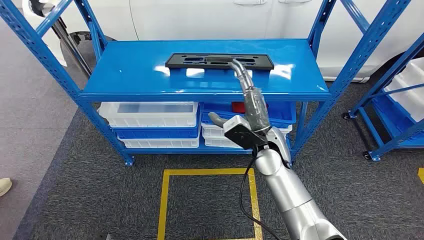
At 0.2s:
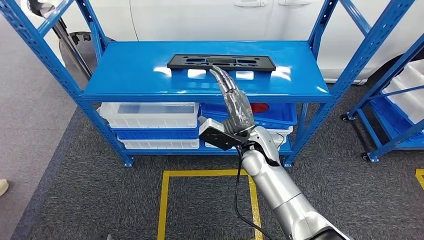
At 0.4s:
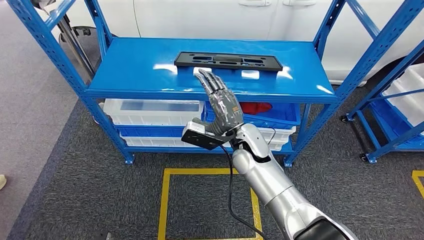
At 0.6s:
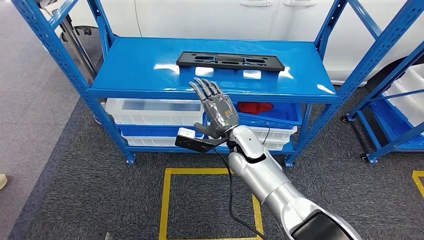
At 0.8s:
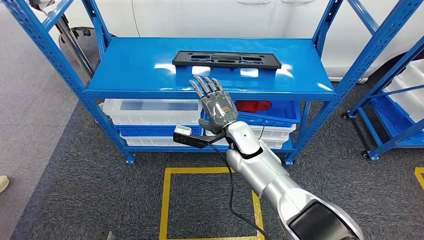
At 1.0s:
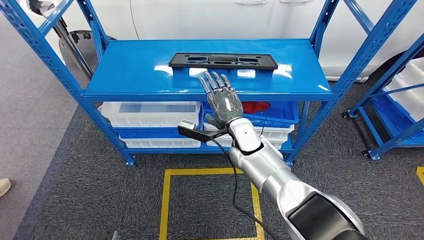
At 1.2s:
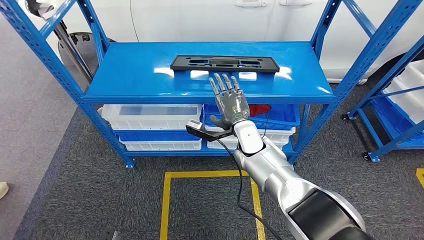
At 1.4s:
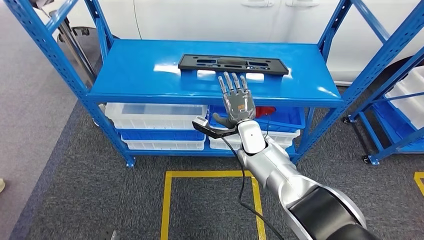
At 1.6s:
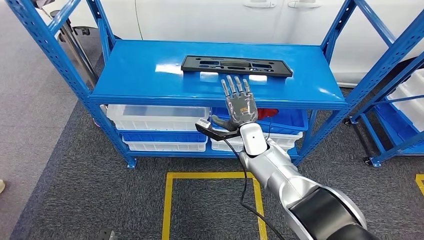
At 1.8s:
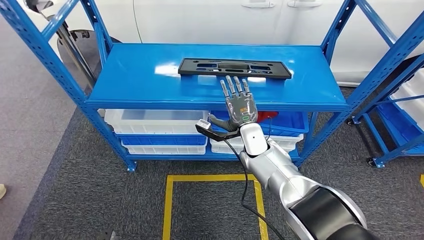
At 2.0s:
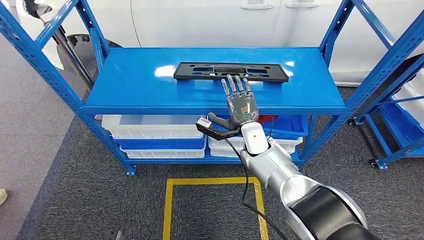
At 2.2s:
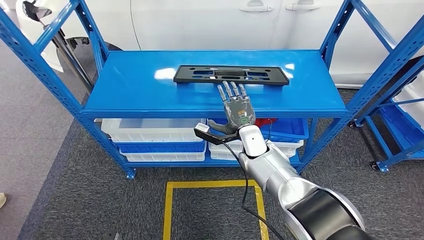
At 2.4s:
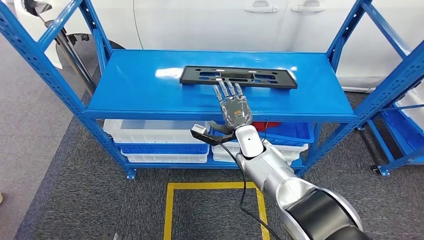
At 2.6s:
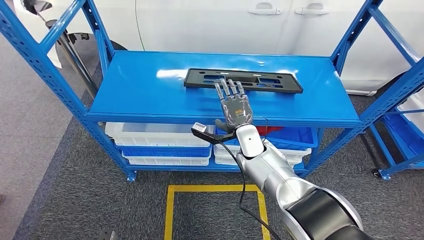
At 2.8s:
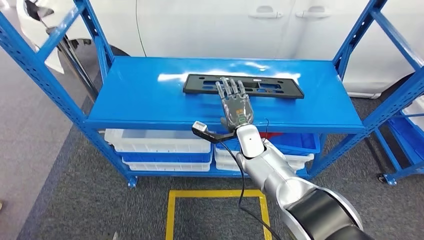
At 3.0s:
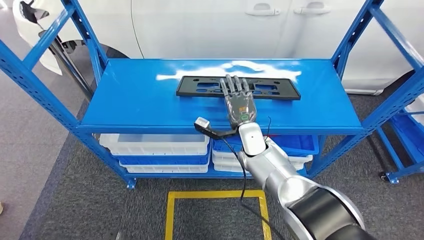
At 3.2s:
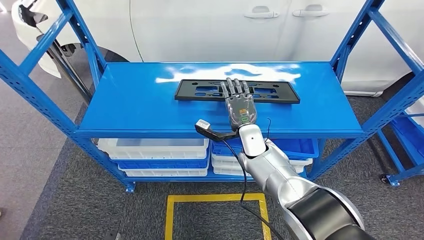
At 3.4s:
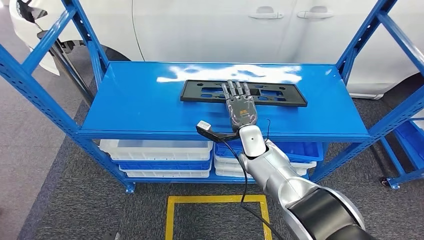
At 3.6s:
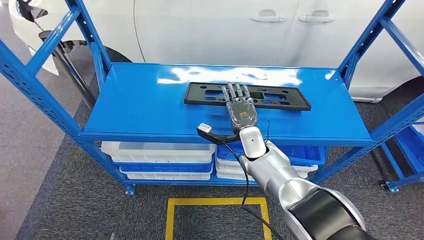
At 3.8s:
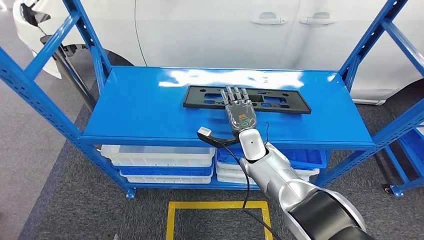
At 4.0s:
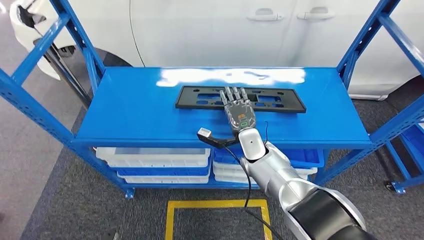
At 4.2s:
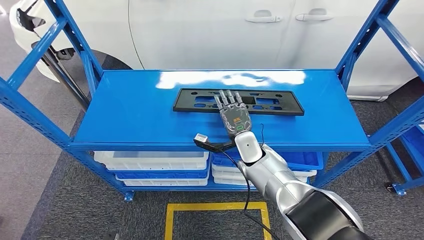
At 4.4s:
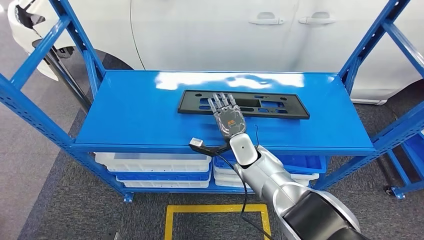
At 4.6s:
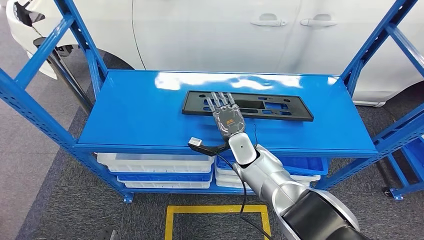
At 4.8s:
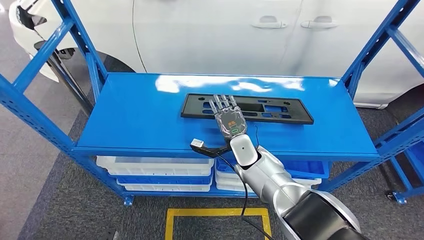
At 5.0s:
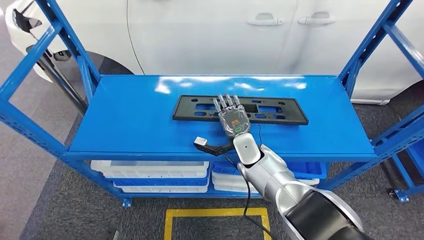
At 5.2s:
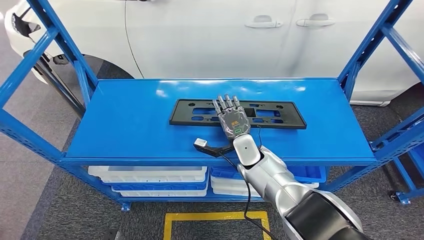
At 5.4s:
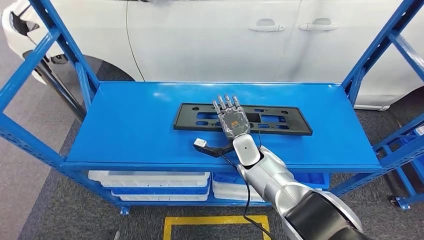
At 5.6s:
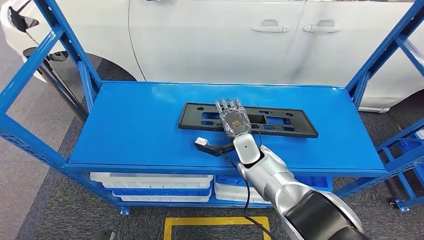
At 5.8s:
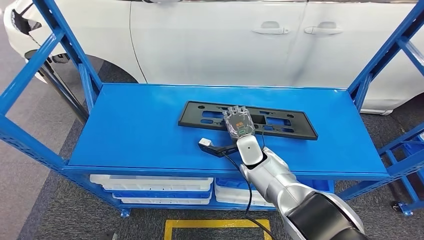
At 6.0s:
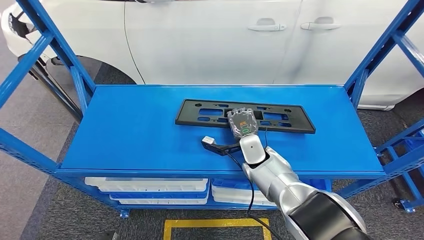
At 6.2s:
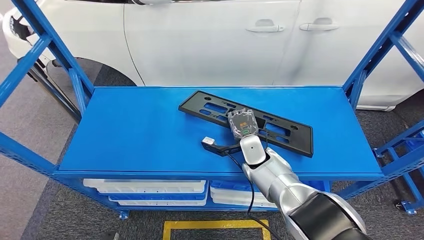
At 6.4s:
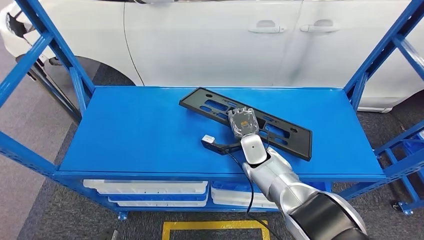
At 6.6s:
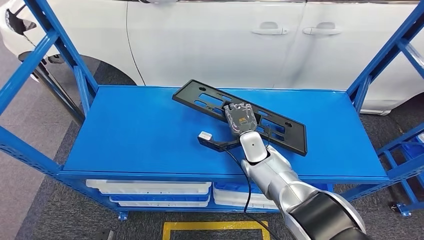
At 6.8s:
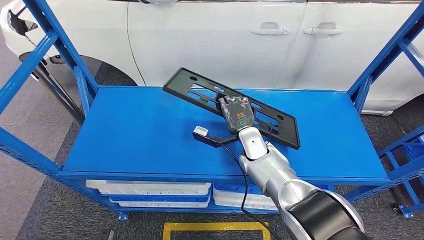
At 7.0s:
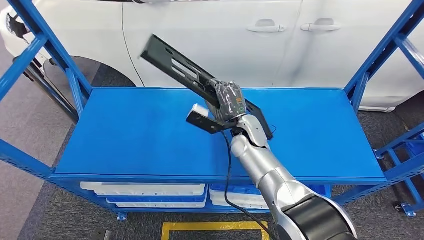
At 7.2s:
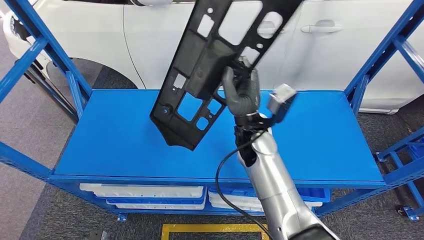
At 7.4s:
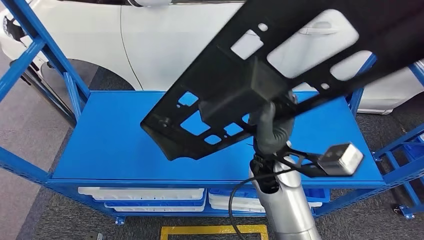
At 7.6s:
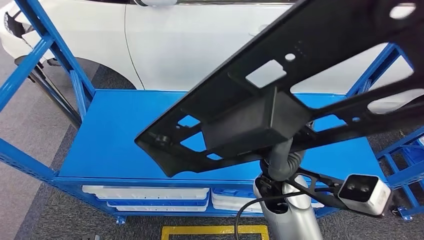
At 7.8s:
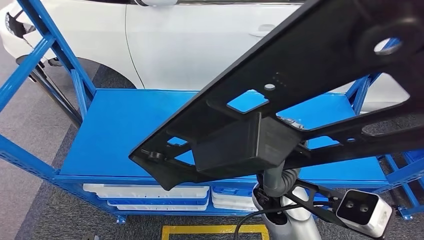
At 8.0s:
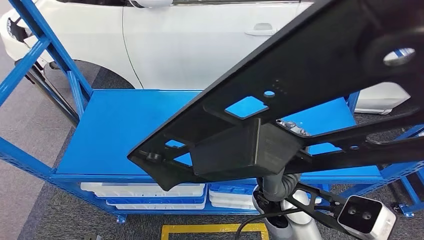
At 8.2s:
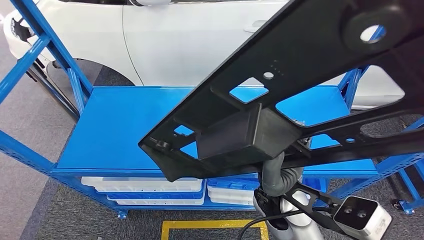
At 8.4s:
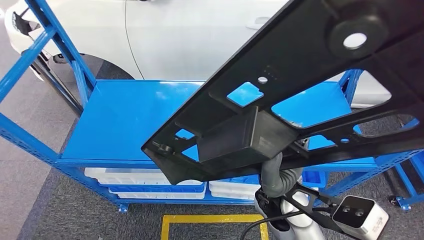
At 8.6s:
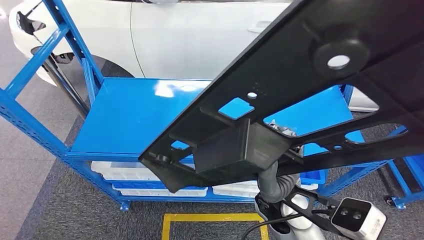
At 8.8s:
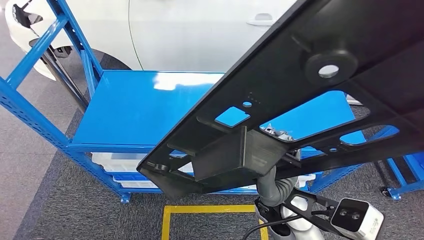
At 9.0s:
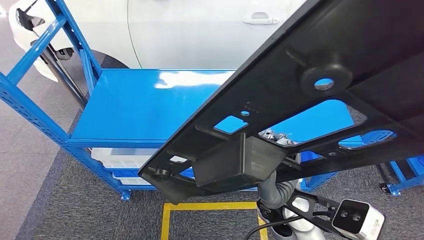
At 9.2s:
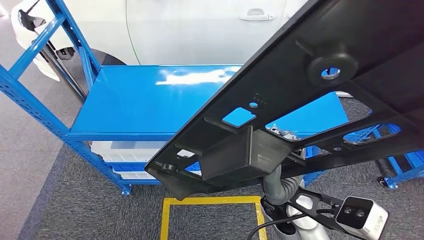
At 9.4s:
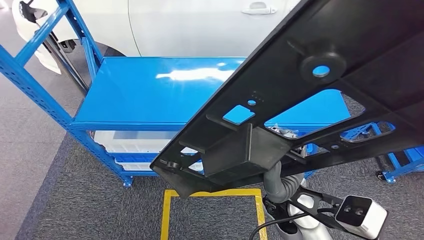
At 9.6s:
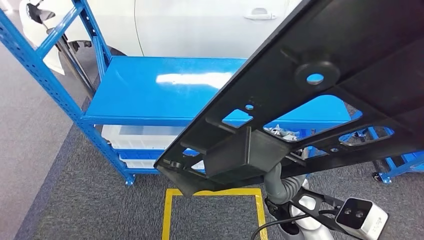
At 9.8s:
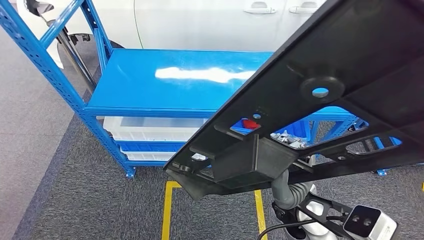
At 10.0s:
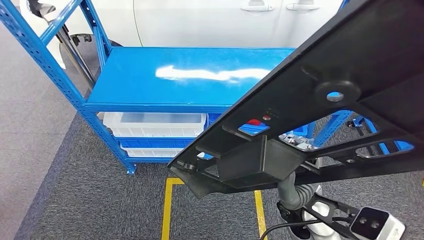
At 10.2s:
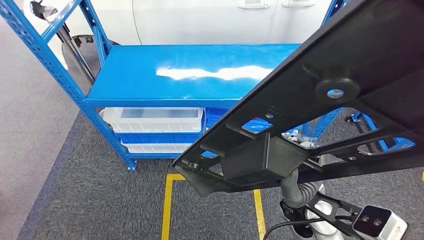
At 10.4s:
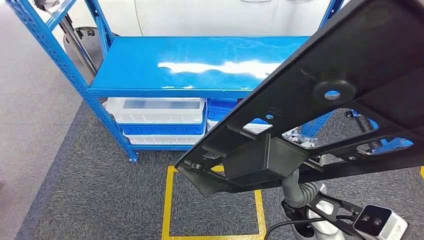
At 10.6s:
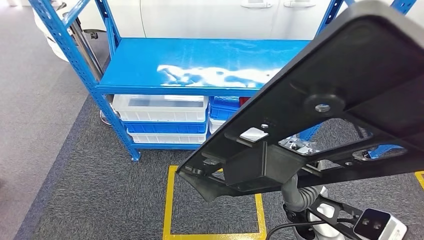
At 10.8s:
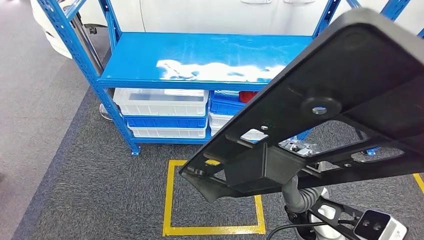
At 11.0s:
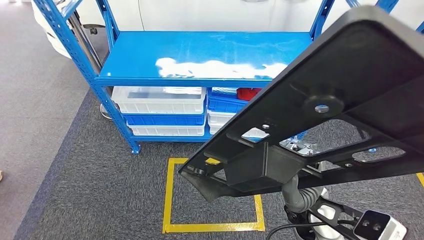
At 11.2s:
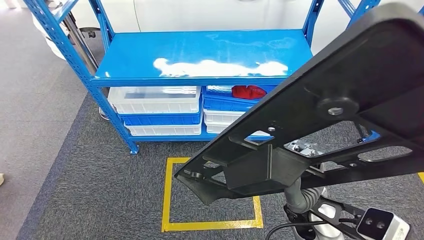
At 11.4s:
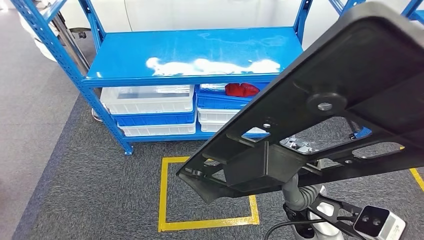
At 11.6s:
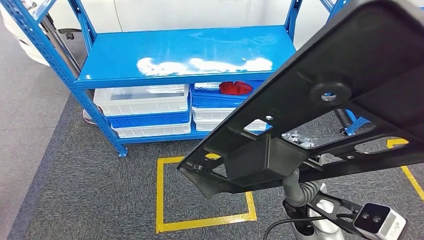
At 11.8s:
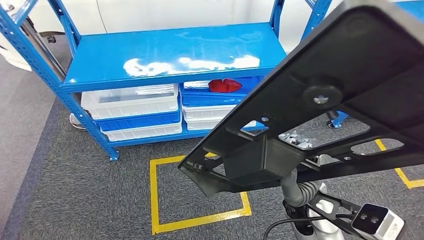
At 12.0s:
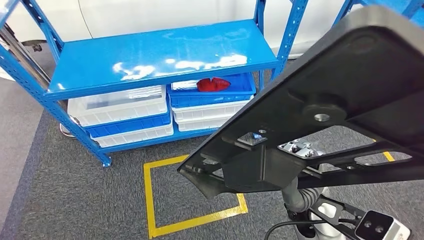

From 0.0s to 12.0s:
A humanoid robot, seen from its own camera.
Step, from 0.0s to 7.4s: Pick up the large material from the shelf.

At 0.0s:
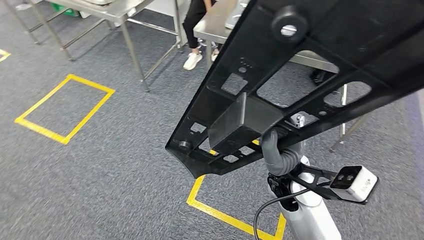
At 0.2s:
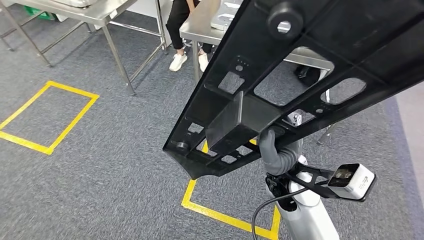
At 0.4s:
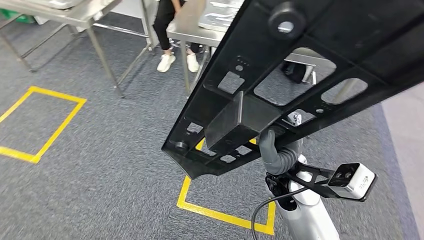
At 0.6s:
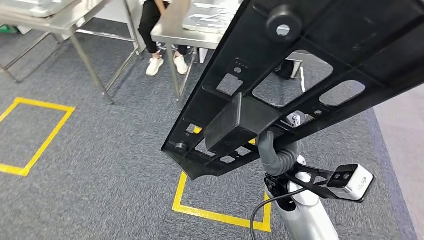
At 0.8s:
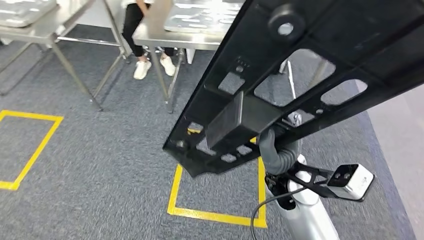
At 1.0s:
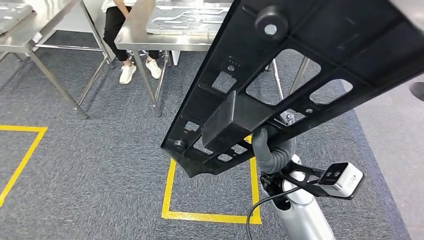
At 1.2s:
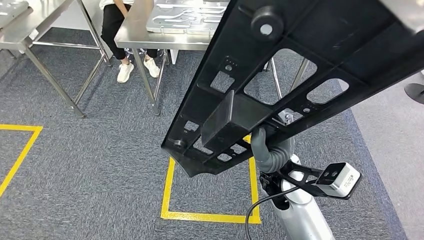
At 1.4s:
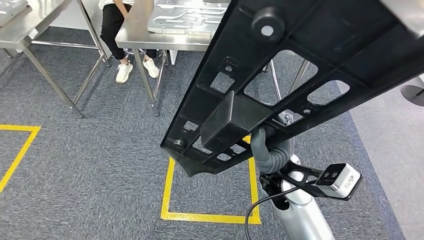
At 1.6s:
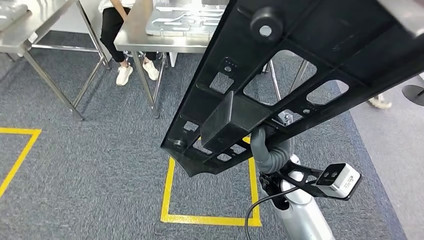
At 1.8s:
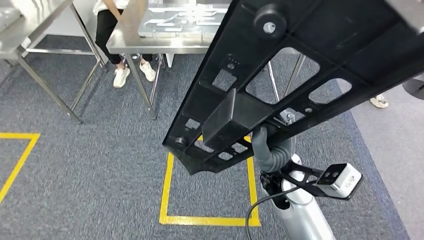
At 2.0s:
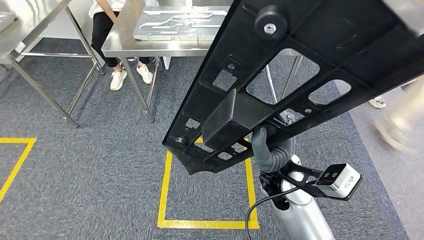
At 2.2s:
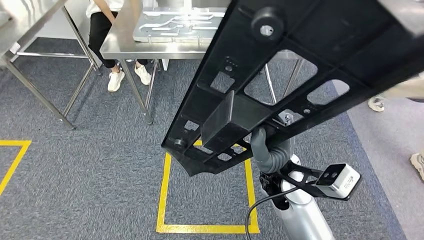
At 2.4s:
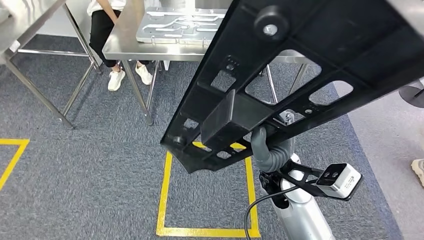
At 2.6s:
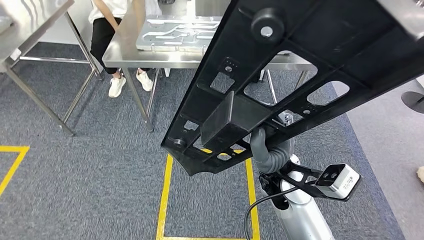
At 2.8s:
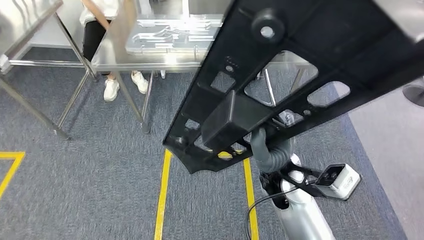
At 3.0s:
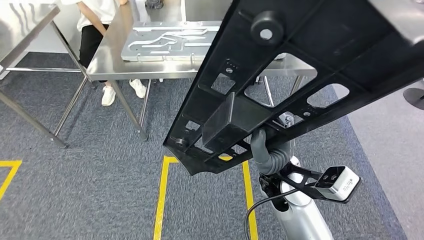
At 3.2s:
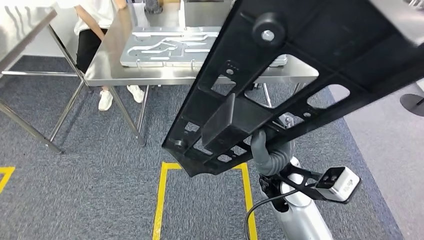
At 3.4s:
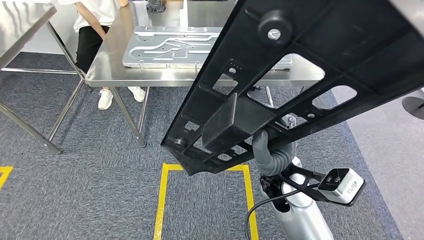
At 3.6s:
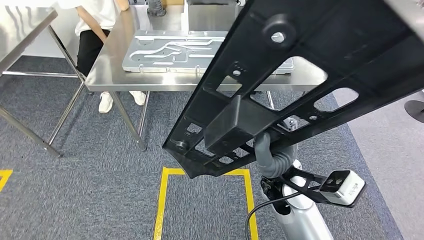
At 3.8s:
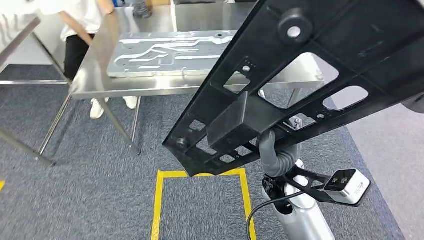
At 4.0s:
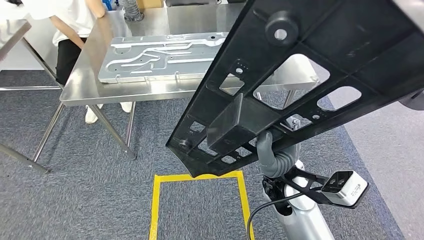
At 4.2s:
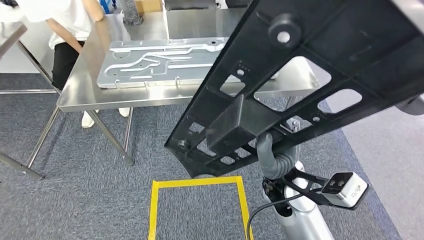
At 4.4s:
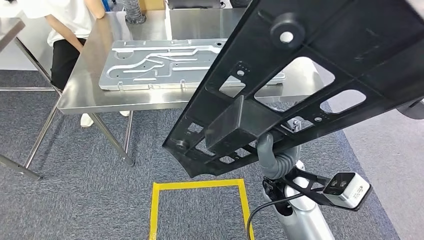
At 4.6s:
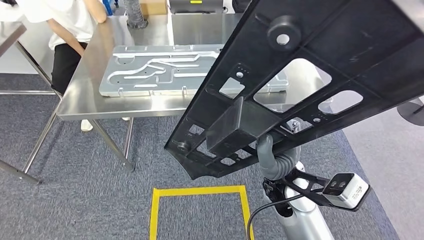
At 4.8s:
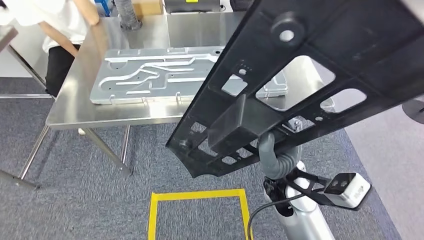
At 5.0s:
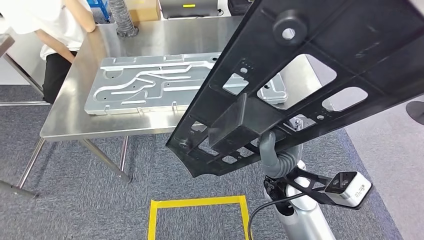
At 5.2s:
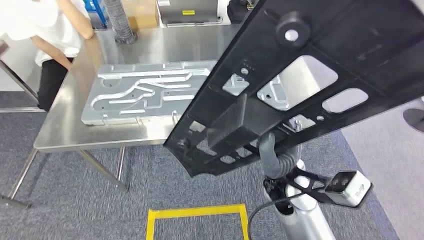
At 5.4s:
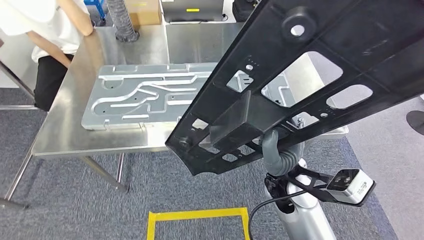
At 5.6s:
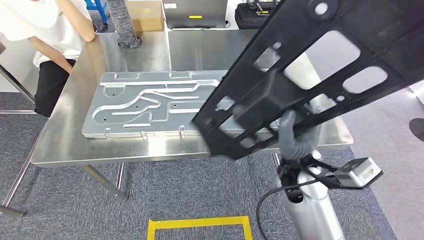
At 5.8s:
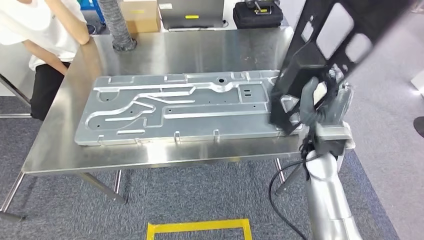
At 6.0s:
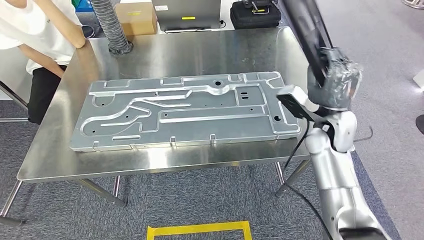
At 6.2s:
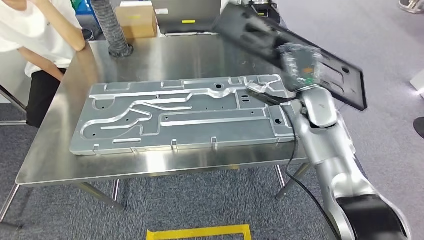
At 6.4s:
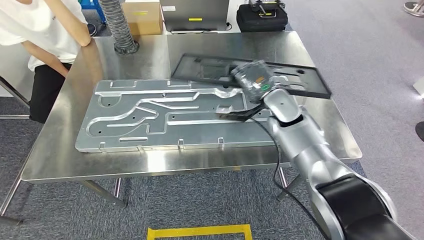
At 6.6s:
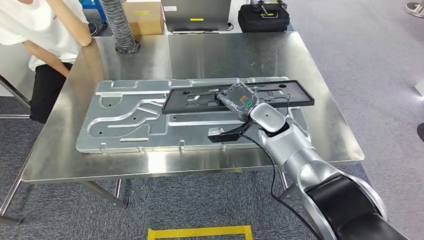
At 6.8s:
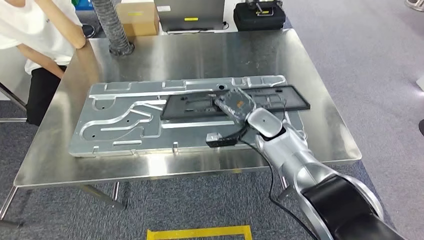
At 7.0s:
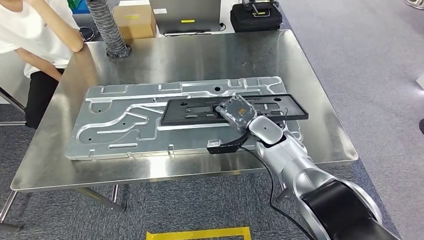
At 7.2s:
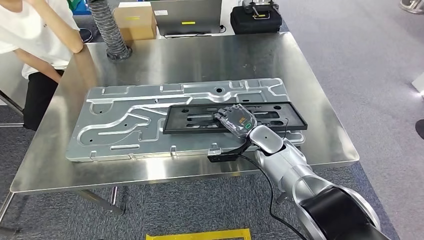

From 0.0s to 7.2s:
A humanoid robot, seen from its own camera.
Step, from 0.0s to 6.6s: Move the large material to the workbench.
